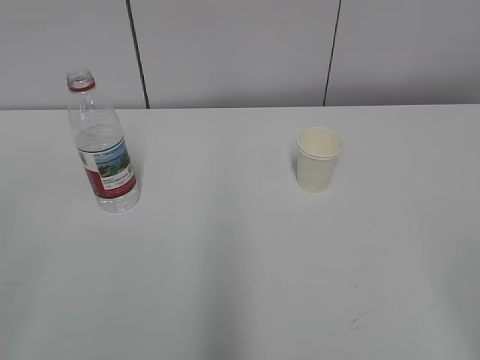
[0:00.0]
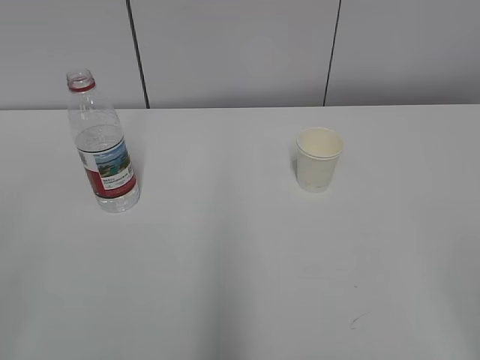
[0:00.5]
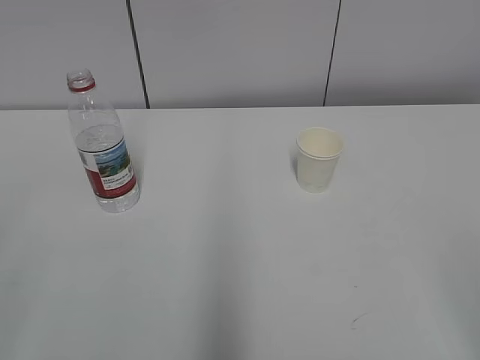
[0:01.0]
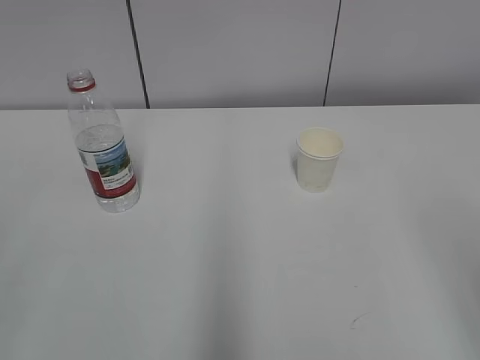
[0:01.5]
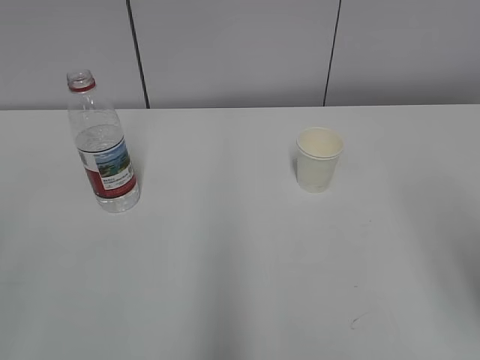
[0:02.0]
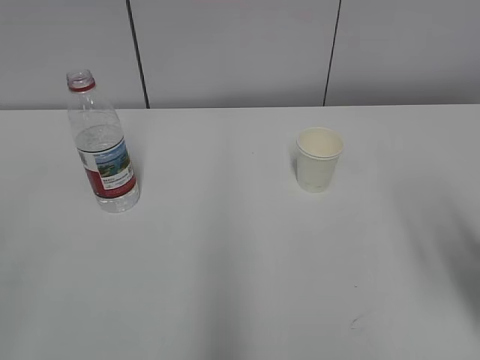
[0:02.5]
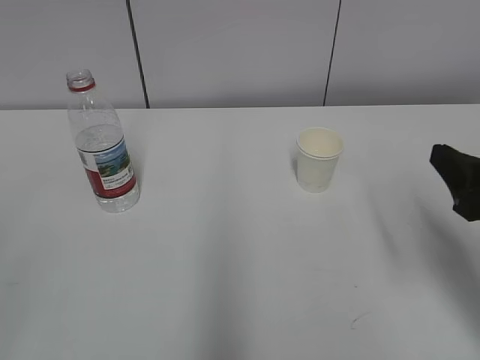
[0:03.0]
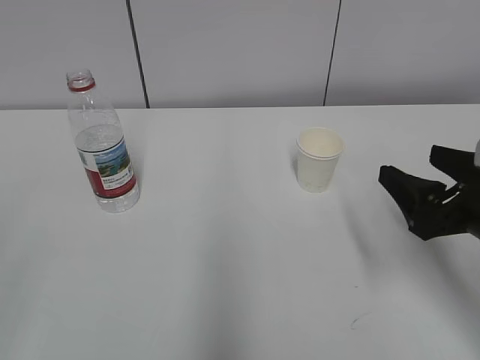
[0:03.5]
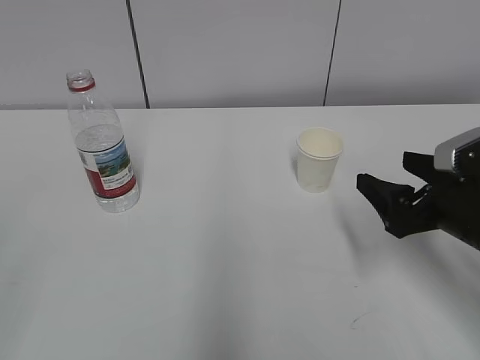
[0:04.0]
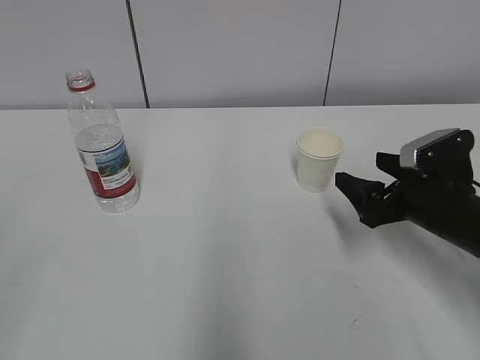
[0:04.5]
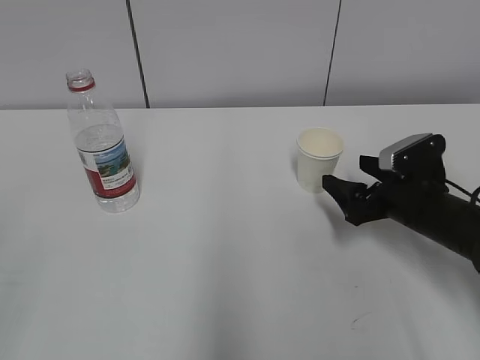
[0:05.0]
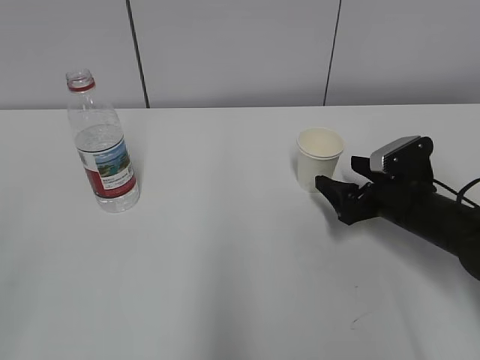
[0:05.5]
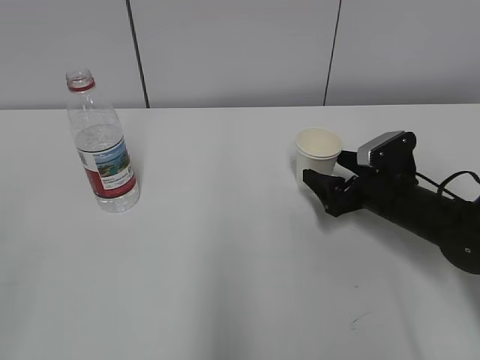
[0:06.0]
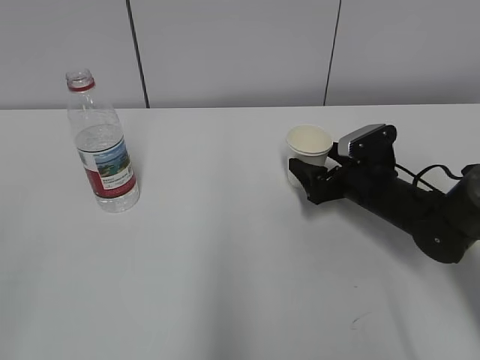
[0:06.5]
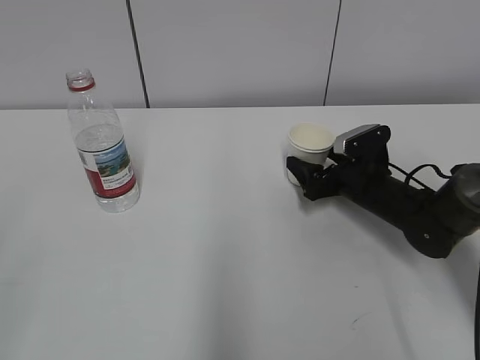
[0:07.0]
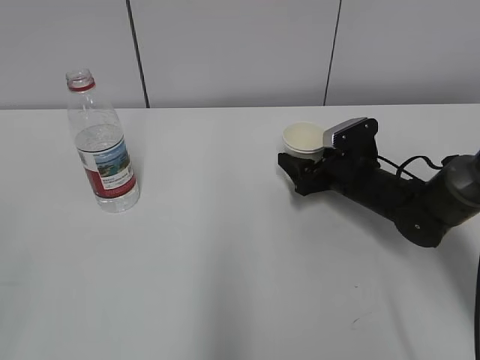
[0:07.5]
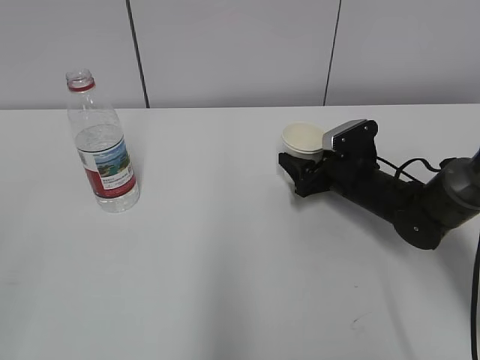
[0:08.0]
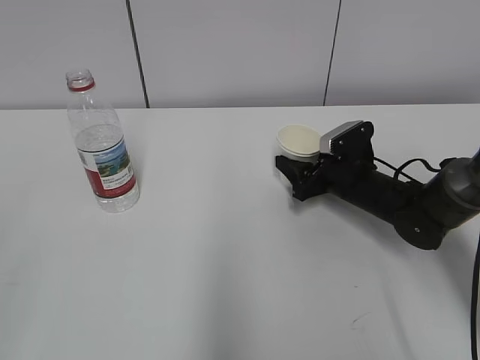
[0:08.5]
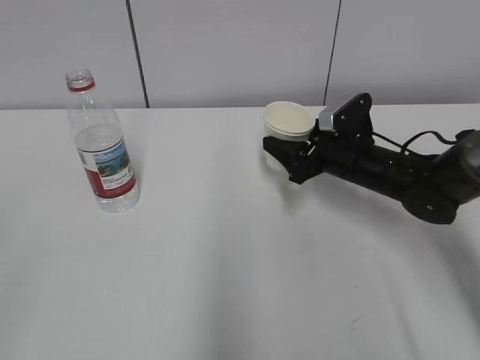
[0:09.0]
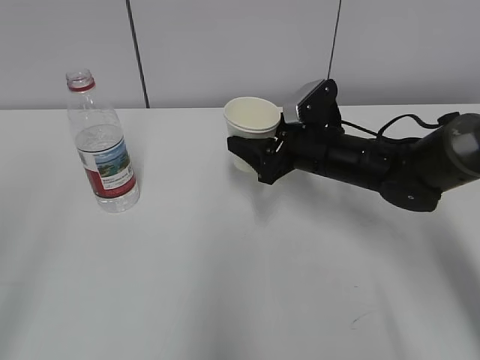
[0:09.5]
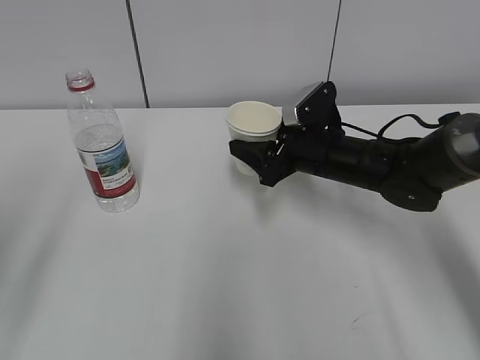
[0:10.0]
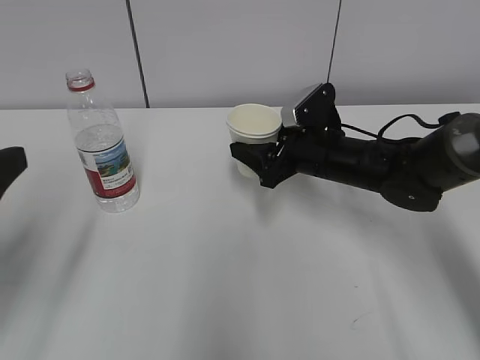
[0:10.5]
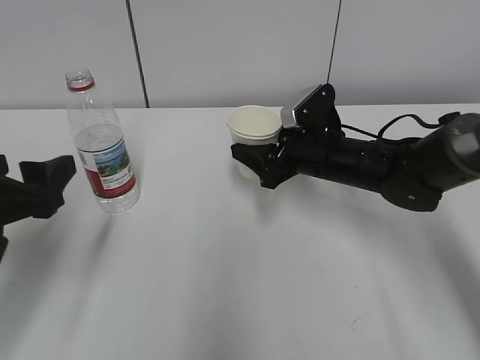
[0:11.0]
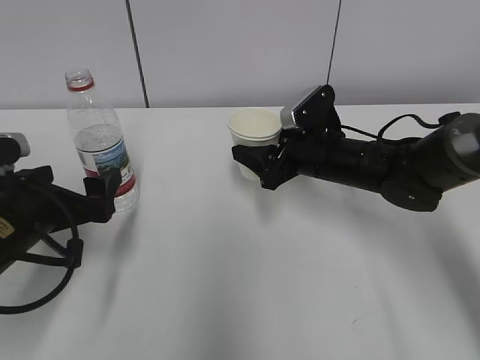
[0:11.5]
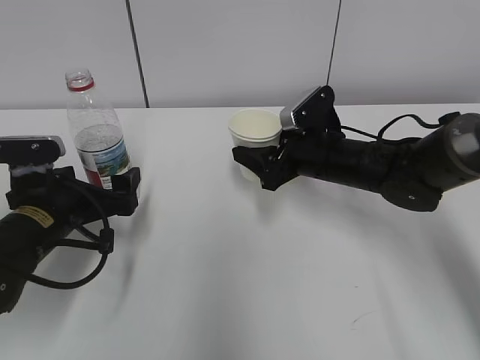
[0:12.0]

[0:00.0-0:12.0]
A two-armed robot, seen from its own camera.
Step, 0:00.0 to 0:07.0: Grab the paper cup with the right hand.
0:02.0 to 0:04.0: The right gripper shifts approximately 20 cm forward and downward, and opens its fingers.
0:04.0 to 0:06.0: The right gripper travels forward and downward by some 15 cm.
0:06.0 to 0:08.0: The right gripper changes place by about 5 cm, and closes up.
0:08.0 to 0:10.0: The right gripper travels upward and to the left by roughly 10 cm; the left gripper heads forward, covering some 15 cm.
0:10.0 to 0:12.0: The left gripper is displaced downward, forward and to the right by roughly 25 cm, and opens its fingers.

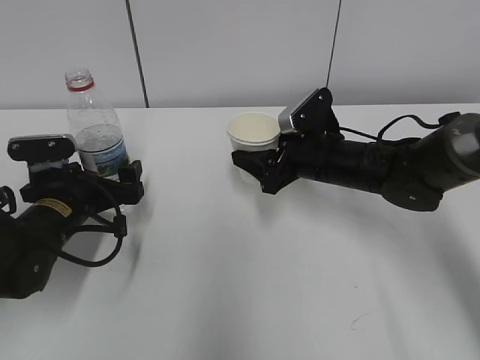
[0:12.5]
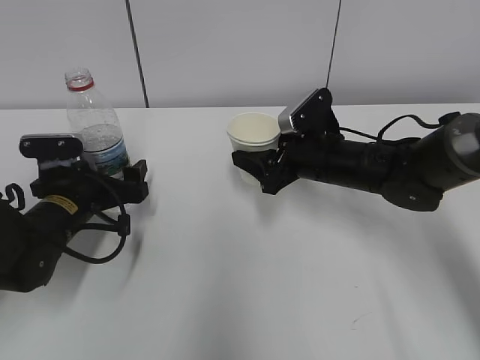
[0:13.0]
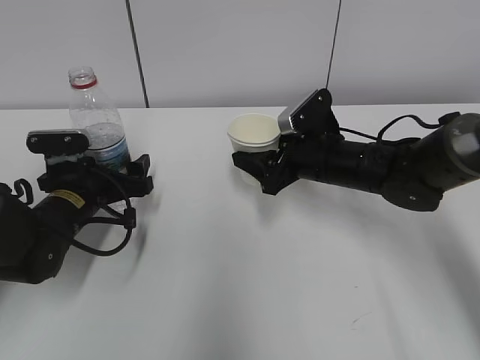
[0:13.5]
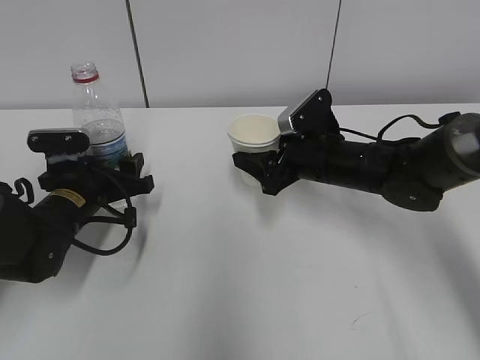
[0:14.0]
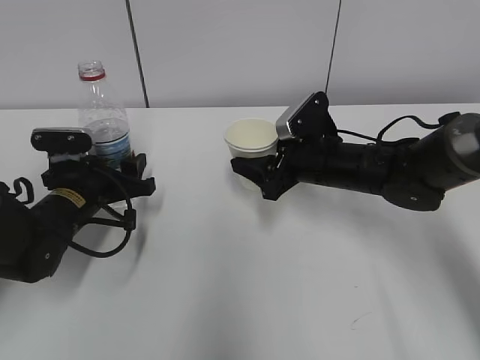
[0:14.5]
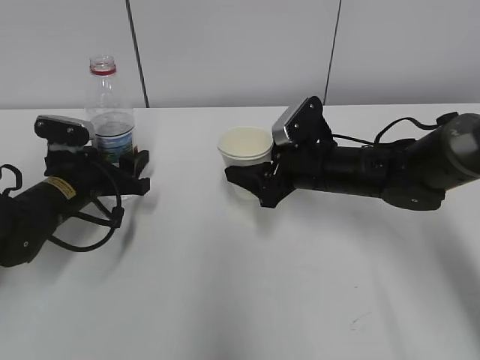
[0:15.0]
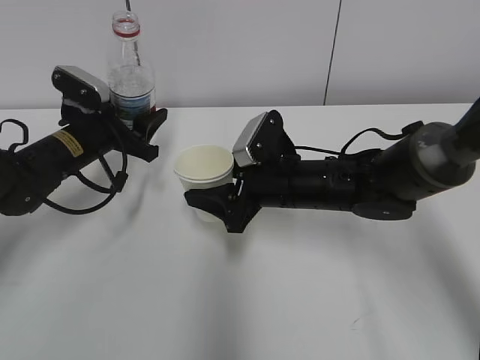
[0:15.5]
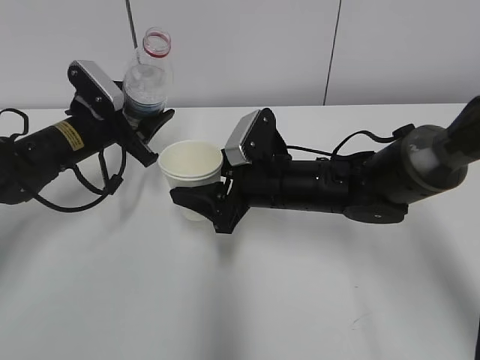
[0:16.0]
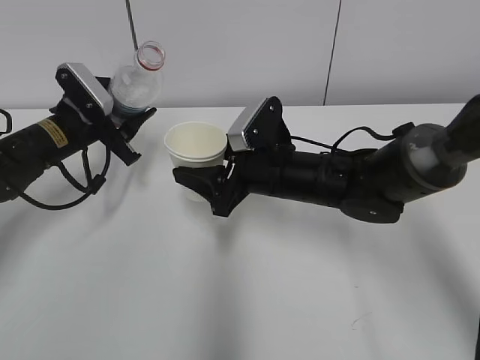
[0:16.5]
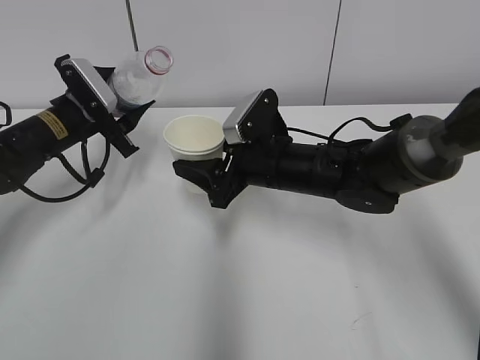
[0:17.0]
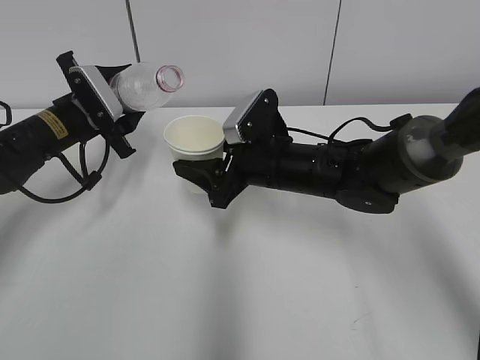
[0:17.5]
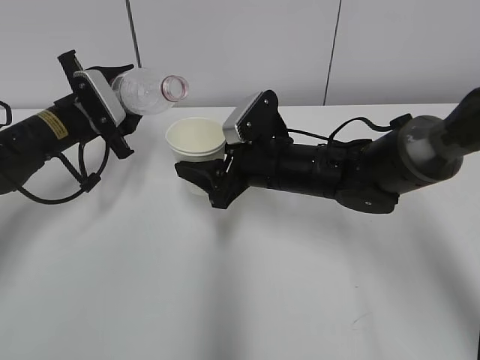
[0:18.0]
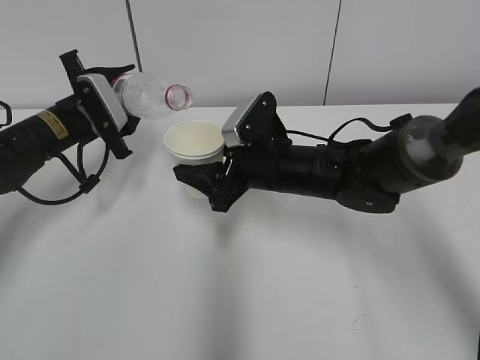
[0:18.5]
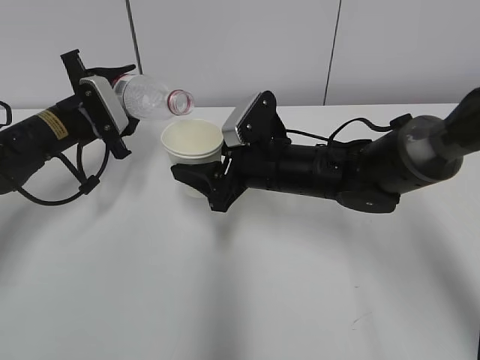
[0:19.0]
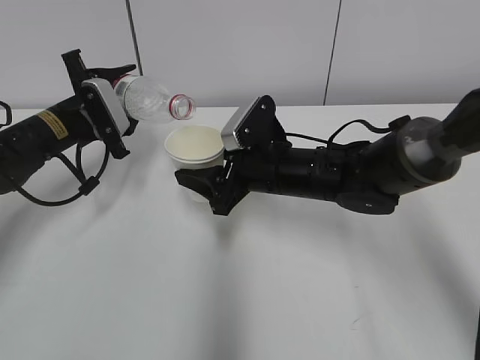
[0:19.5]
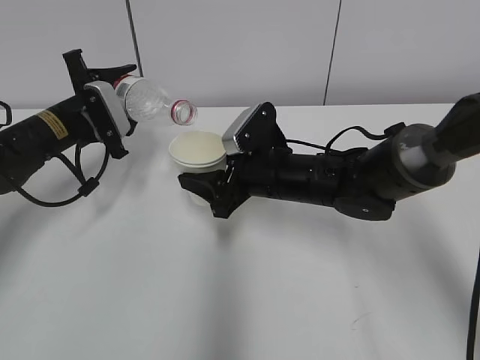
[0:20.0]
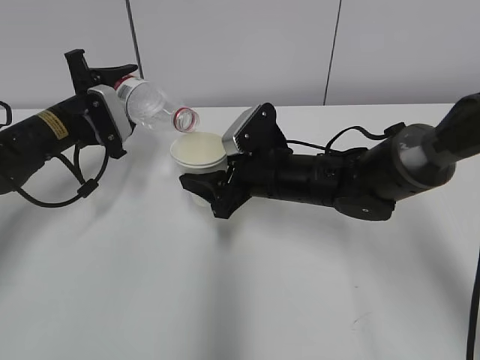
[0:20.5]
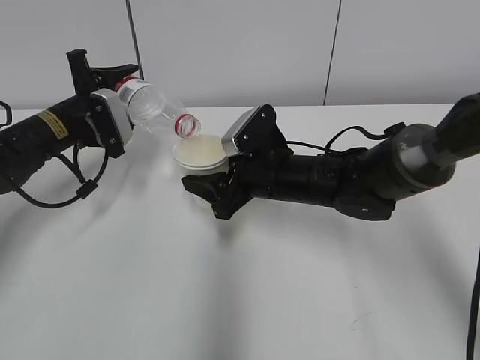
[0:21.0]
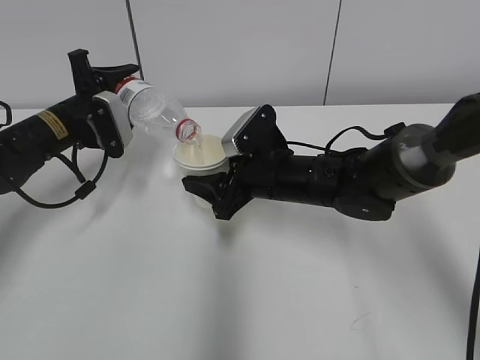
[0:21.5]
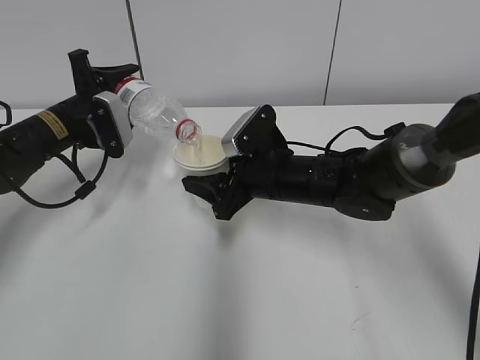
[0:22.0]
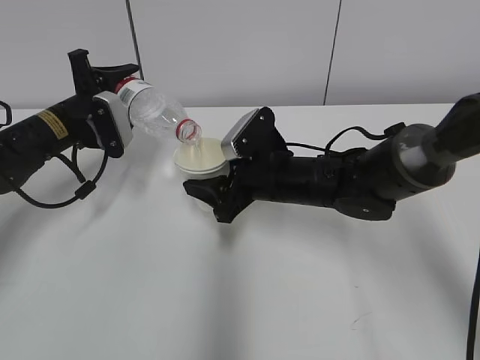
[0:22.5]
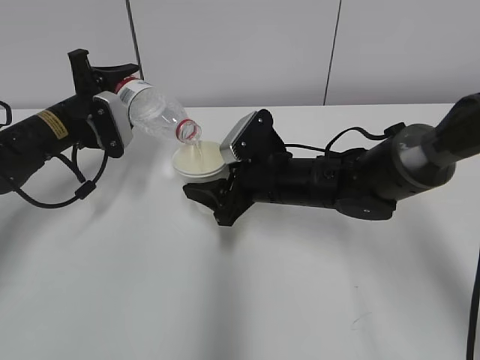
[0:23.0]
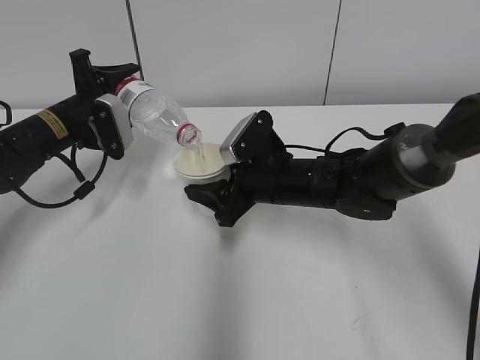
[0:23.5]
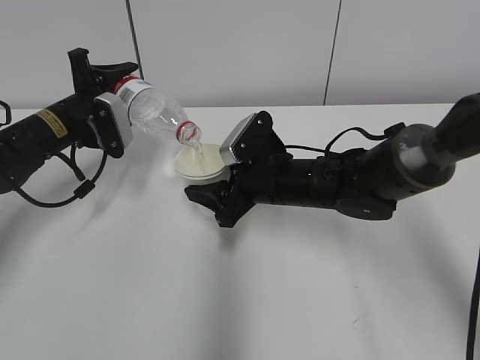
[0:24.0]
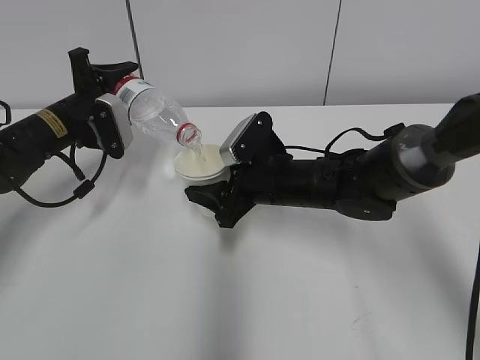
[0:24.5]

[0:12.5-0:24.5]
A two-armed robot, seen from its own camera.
Step, 0:12.5 to 0:17.5: Lift the paper cup with the right hand.
Step, 0:18.0 to 0:22.0: Fill water with the right hand.
0:12.5 to 0:14.5: The left gripper closes.
0:14.5 to 0:16.5: The left gripper travels forward and upward by some 10 cm; the right gripper shifts approximately 5 cm to the left.
0:18.5 to 0:22.5: The grippers make only small movements.
0:22.5 to 0:24.5: The two grippers keep their place.

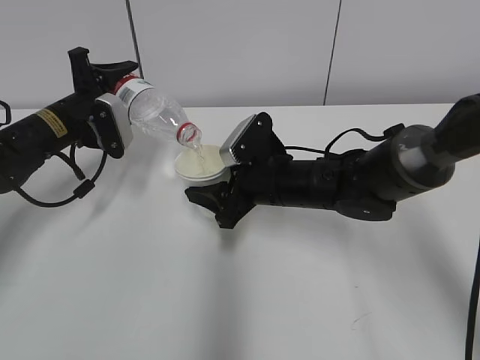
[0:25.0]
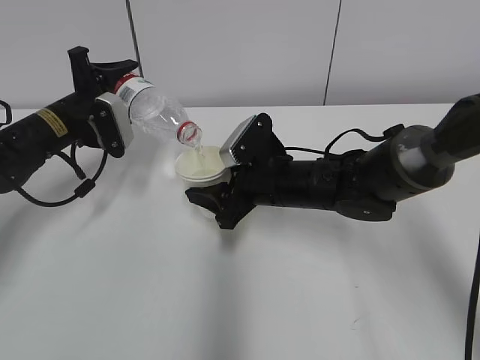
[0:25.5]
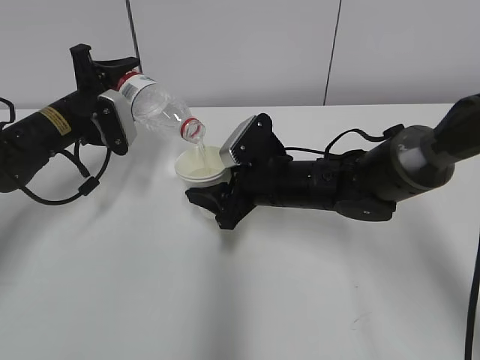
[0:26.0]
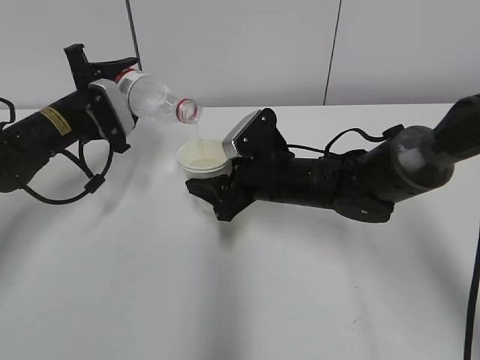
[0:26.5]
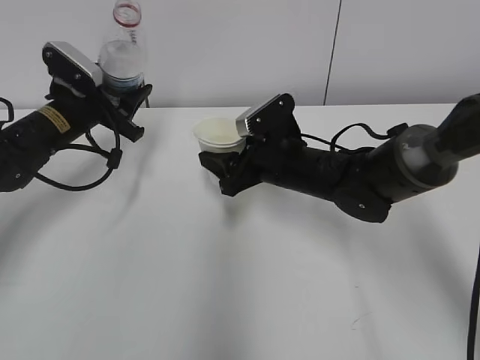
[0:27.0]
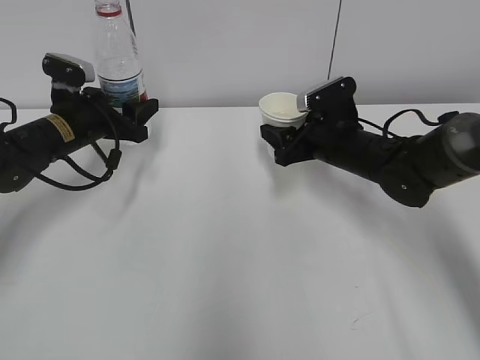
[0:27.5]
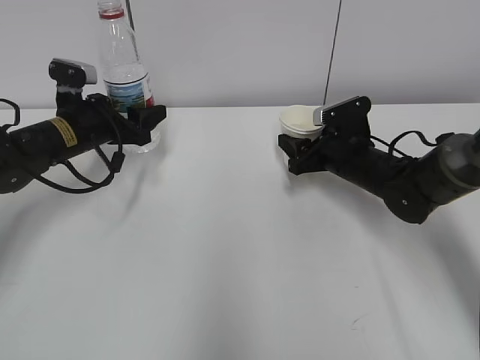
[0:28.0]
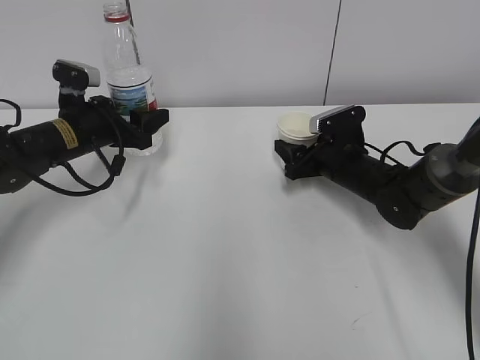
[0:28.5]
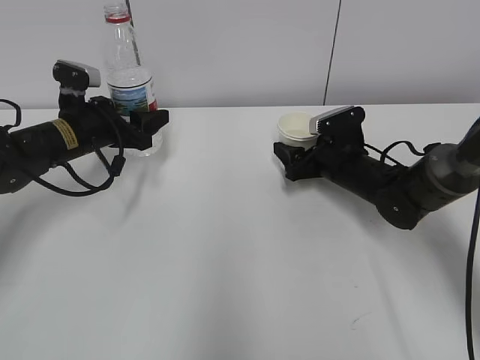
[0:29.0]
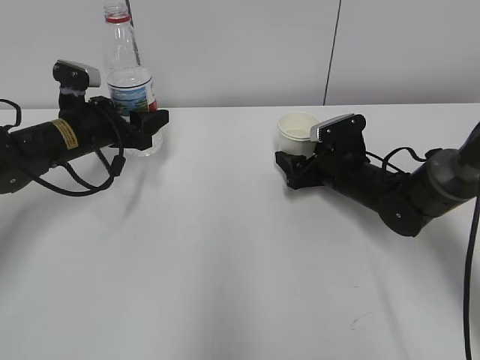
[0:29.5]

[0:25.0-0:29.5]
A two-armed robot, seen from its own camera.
Step, 0:25.0 to 0:26.5: Place the water bottle with the left hand.
0:27.0 to 0:29.5: The right gripper shifts about 10 cm to the right and downward, and opens.
